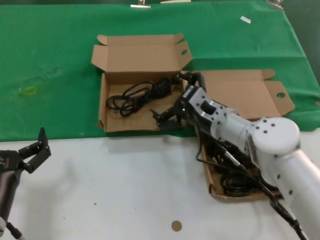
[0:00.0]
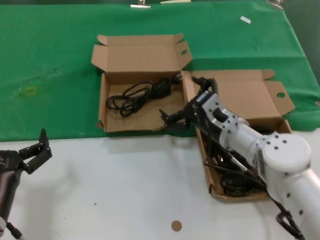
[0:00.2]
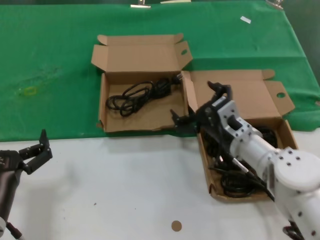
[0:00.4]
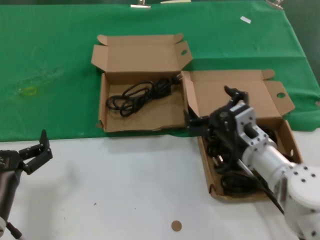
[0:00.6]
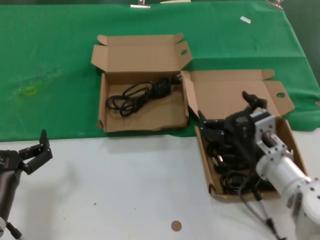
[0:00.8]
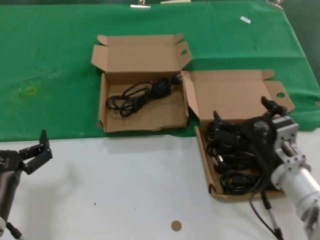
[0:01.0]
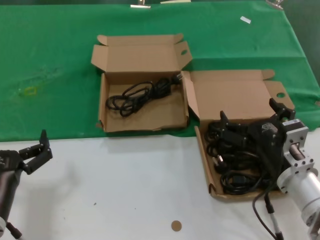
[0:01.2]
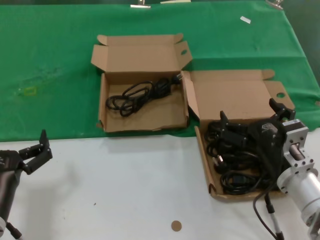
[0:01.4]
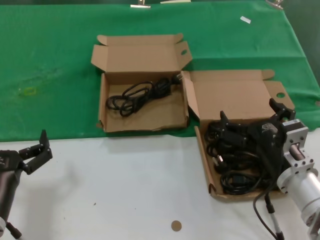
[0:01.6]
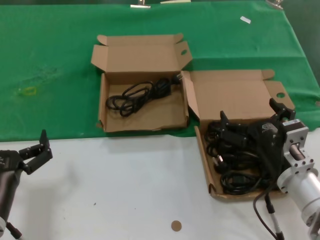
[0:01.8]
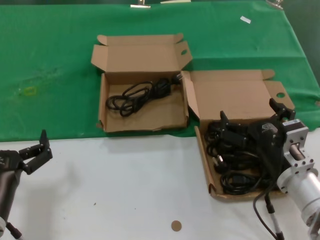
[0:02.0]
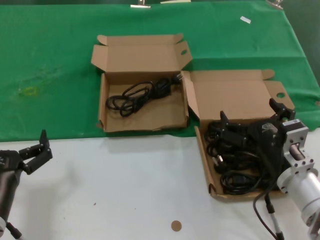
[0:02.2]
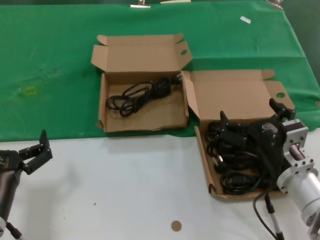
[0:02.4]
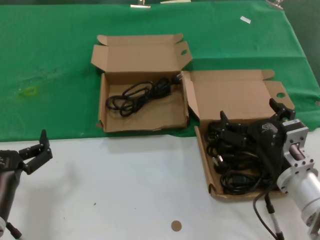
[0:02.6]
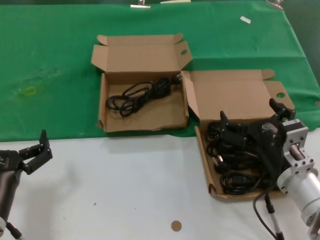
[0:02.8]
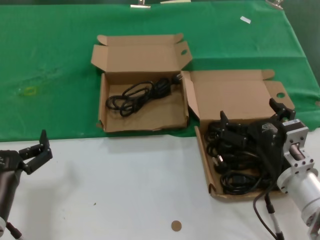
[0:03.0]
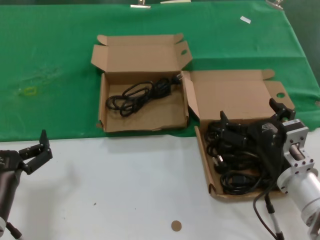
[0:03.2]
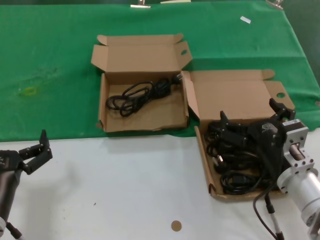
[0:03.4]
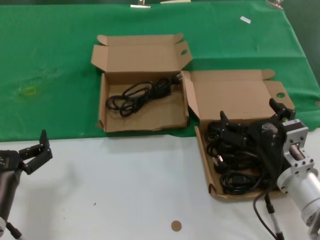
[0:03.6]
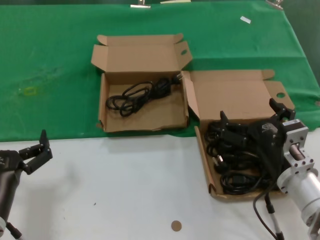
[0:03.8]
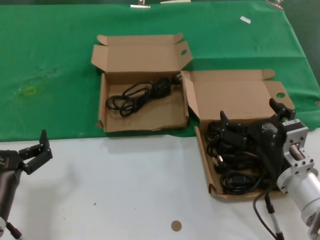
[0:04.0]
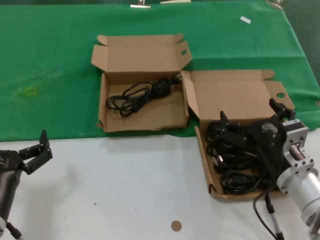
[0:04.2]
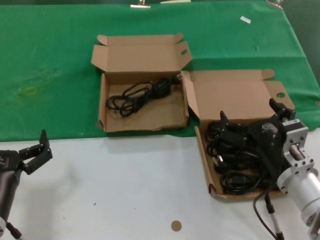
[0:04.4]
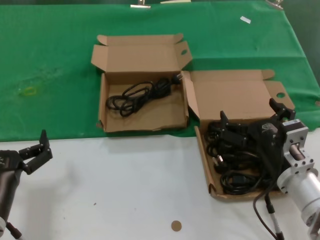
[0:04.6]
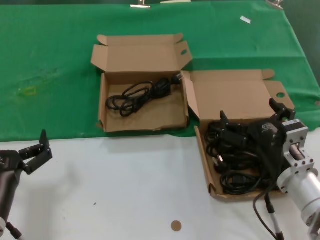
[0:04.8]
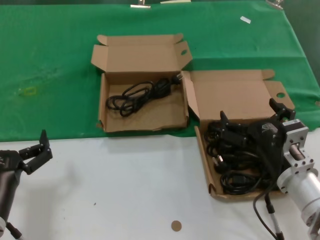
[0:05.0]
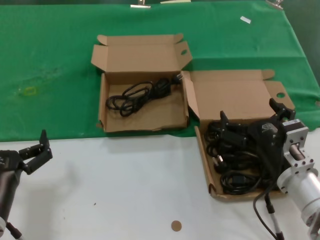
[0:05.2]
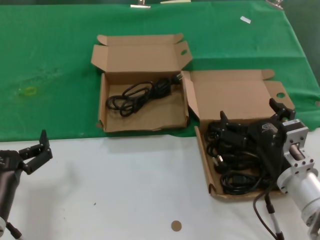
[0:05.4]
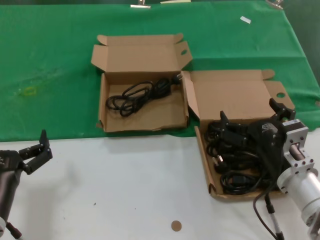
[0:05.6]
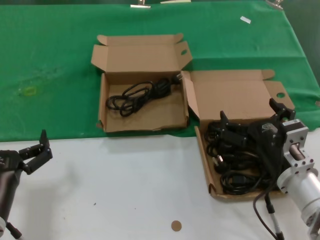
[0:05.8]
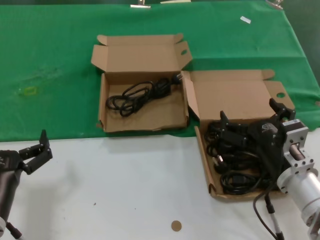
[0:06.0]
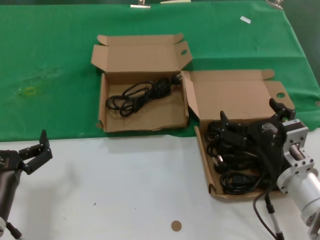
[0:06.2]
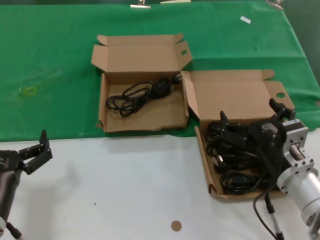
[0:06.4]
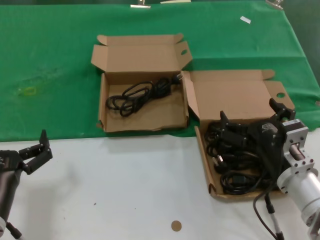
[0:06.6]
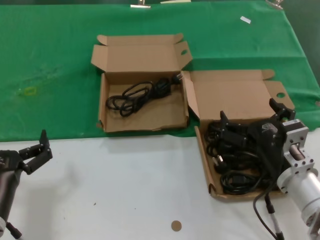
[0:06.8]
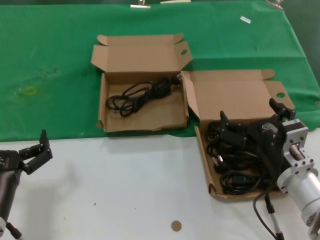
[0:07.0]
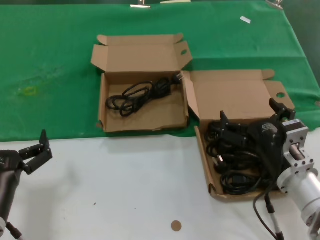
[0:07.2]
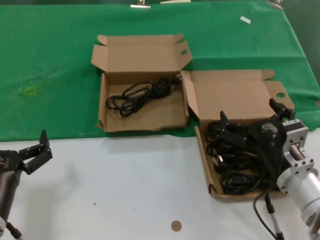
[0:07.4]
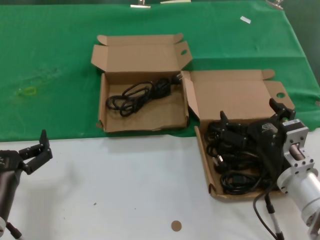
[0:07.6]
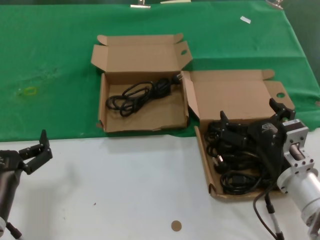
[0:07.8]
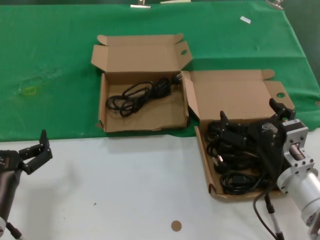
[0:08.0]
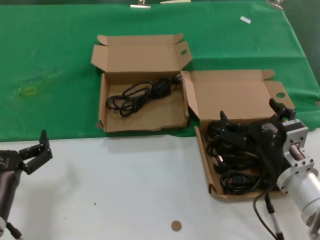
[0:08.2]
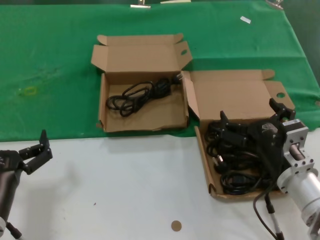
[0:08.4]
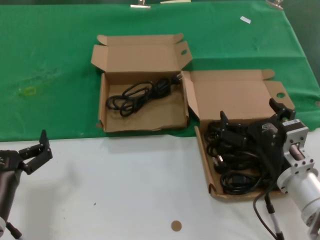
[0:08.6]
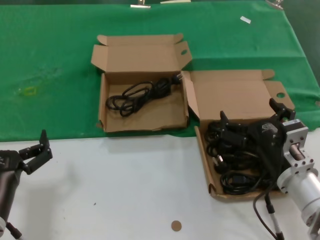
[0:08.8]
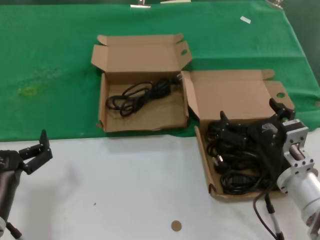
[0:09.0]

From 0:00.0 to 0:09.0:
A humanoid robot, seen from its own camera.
Task of the whole recording: take the parts from the box containing them and put them into an empty box.
From 0:00.0 to 0:01.6: The right hand moves backward and to the right, approximately 20 cm.
From 0:01.6 to 0:09.0: The two hands keep their place.
